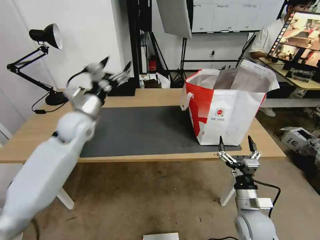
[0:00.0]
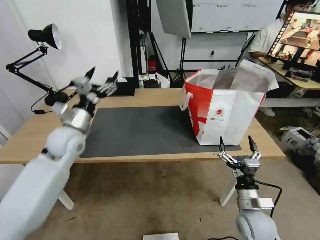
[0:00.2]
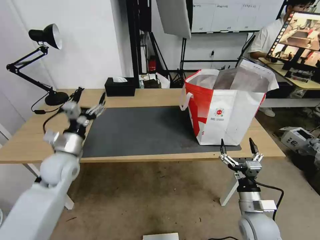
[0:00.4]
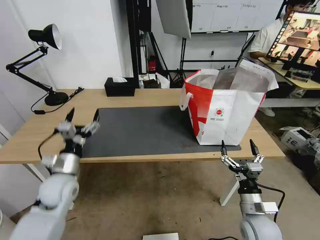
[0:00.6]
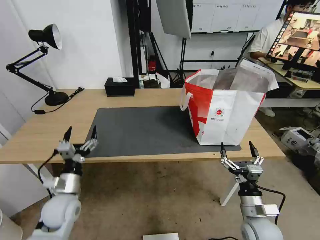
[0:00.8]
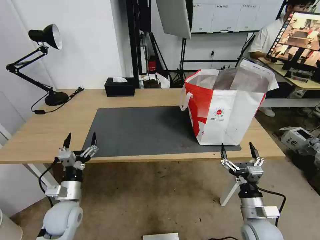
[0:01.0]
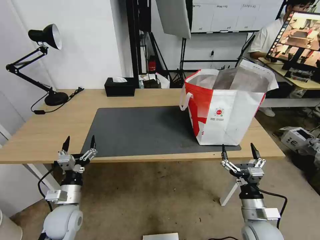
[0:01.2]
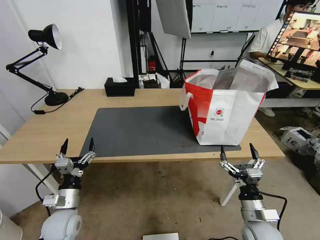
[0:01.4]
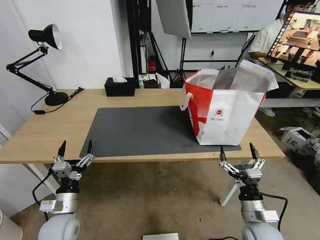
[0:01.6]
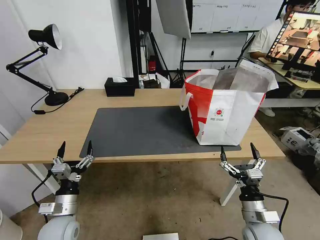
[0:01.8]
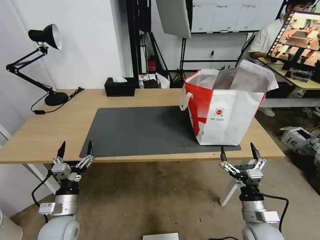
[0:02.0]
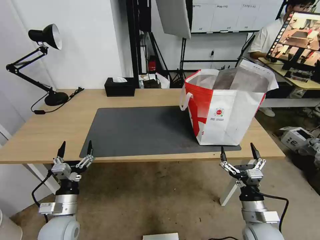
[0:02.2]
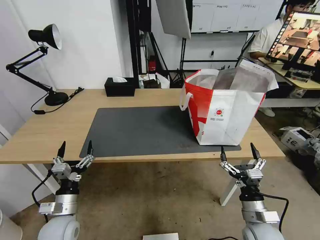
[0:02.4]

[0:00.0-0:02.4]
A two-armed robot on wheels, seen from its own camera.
Task of the whole recording: Pick up the trash from the table and place it into the takeout bag.
0:00.0 to 0:01.2: The left gripper travels downward and backward by about 30 cm.
0:01.2 to 0:02.4: The grippers make only small movements.

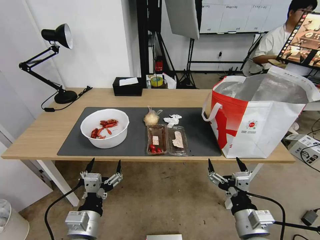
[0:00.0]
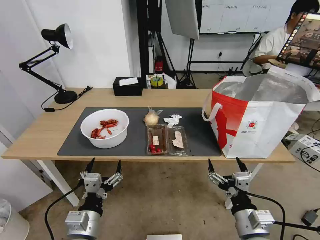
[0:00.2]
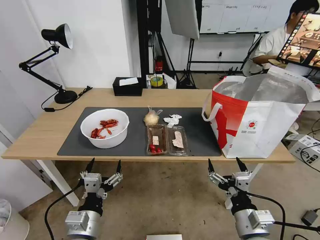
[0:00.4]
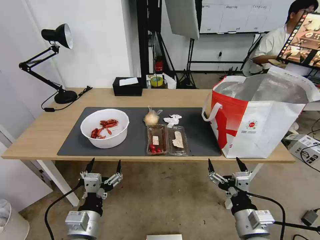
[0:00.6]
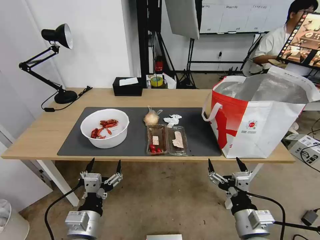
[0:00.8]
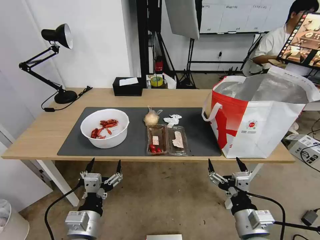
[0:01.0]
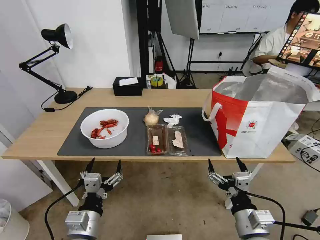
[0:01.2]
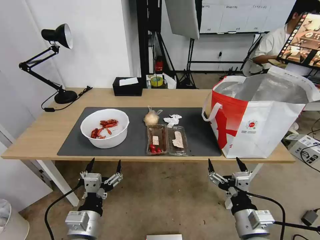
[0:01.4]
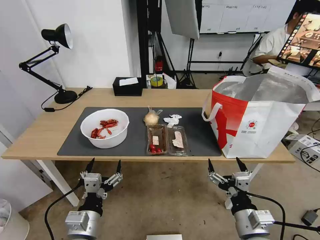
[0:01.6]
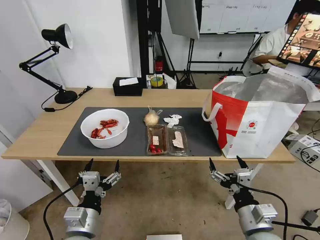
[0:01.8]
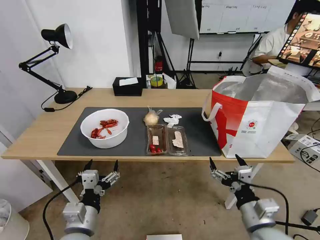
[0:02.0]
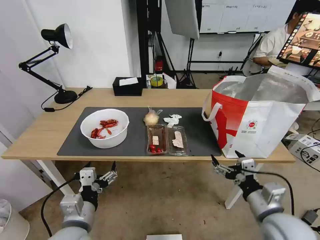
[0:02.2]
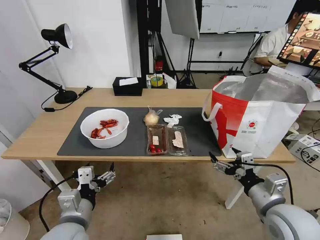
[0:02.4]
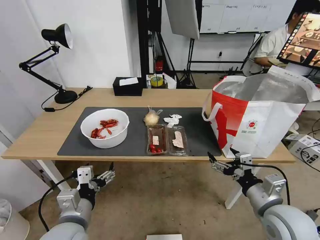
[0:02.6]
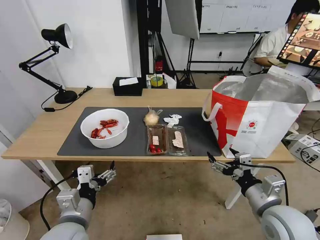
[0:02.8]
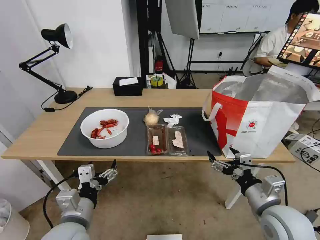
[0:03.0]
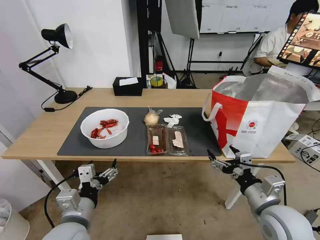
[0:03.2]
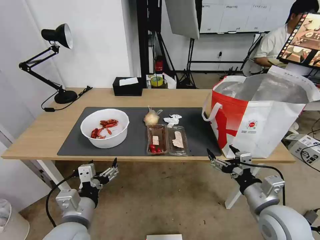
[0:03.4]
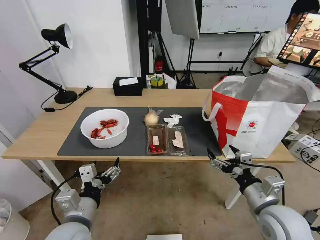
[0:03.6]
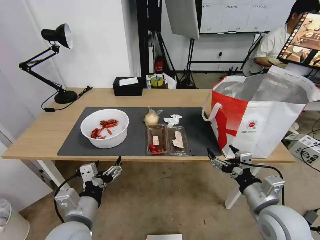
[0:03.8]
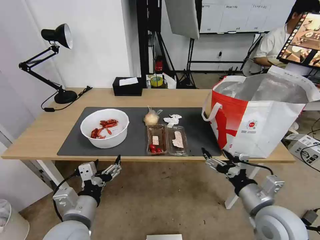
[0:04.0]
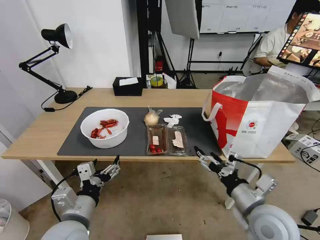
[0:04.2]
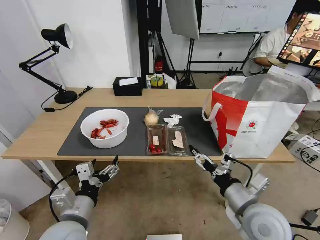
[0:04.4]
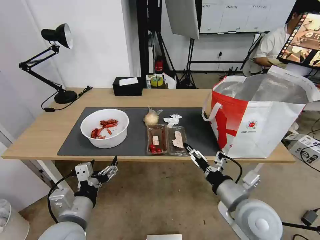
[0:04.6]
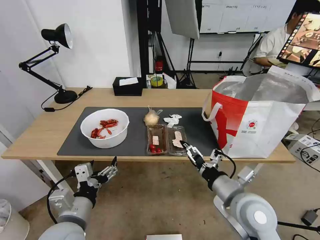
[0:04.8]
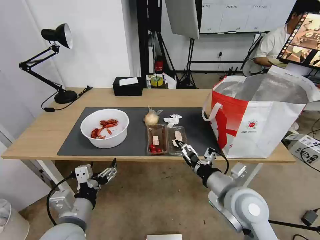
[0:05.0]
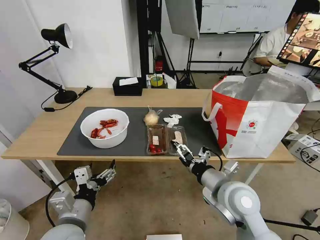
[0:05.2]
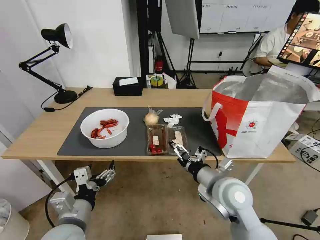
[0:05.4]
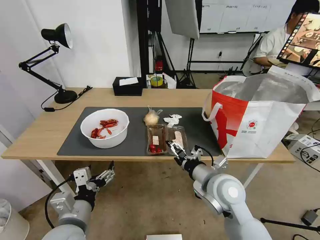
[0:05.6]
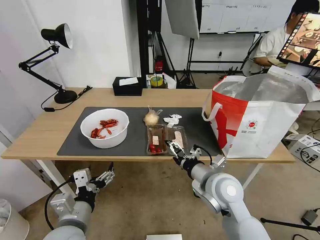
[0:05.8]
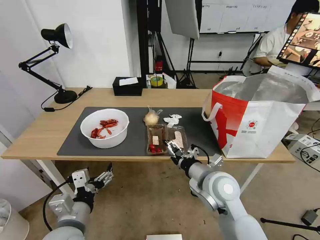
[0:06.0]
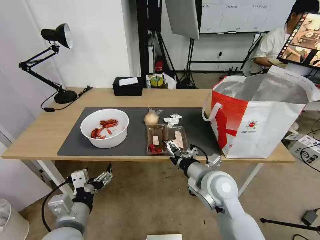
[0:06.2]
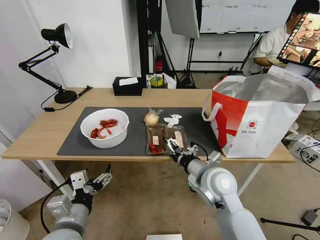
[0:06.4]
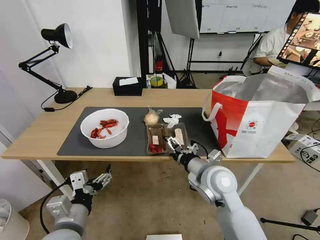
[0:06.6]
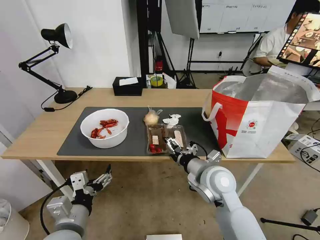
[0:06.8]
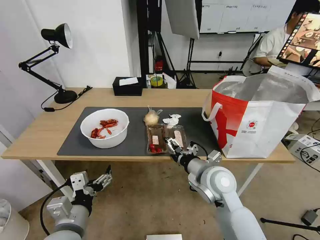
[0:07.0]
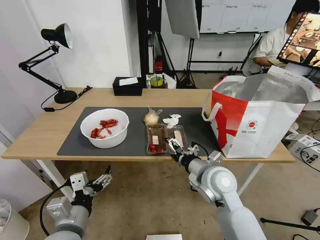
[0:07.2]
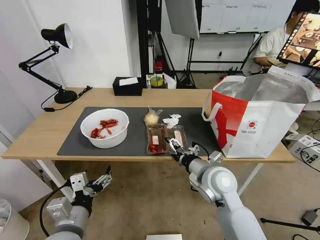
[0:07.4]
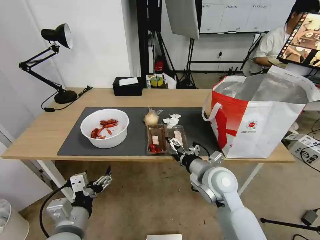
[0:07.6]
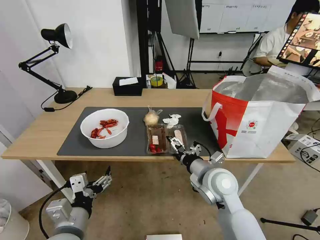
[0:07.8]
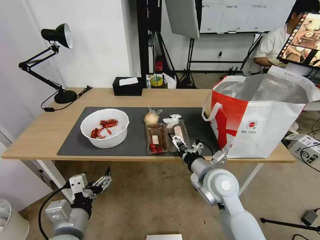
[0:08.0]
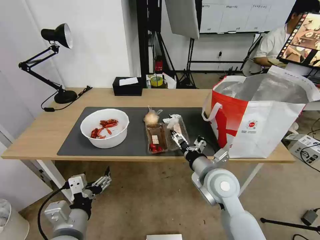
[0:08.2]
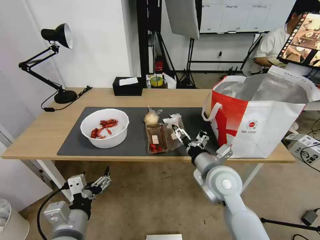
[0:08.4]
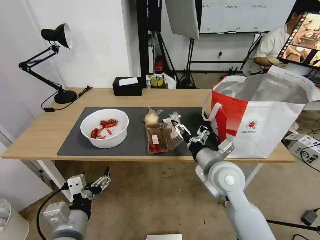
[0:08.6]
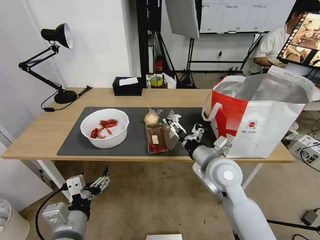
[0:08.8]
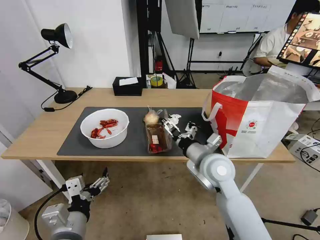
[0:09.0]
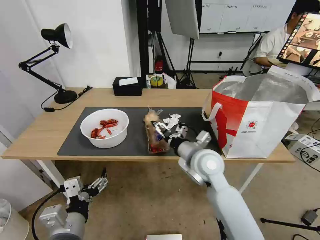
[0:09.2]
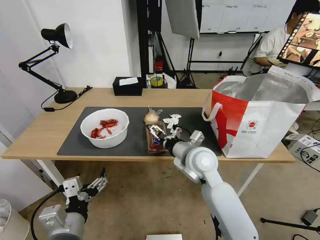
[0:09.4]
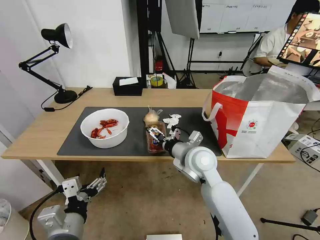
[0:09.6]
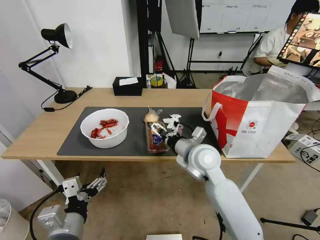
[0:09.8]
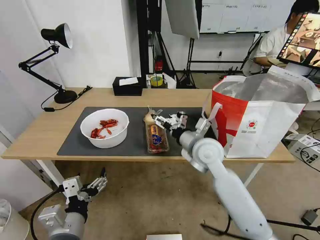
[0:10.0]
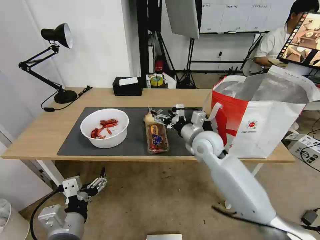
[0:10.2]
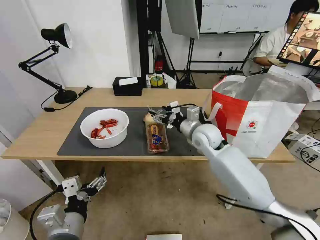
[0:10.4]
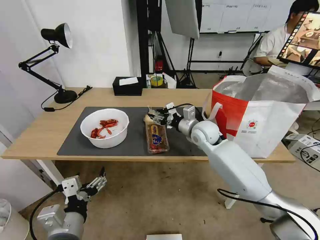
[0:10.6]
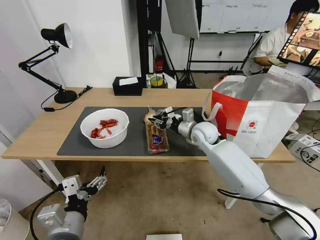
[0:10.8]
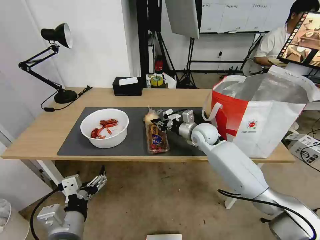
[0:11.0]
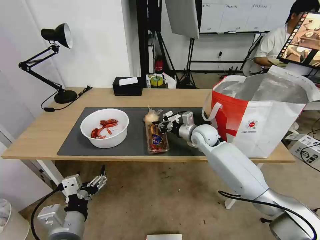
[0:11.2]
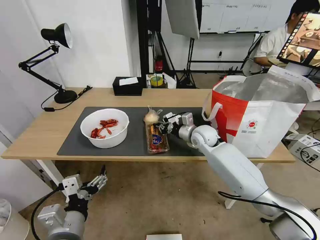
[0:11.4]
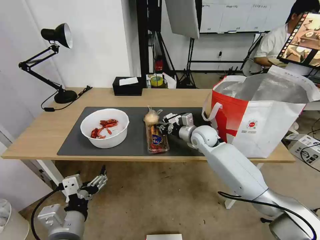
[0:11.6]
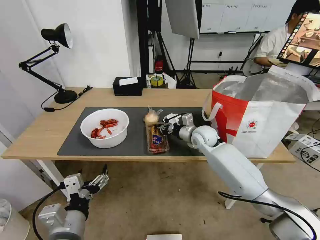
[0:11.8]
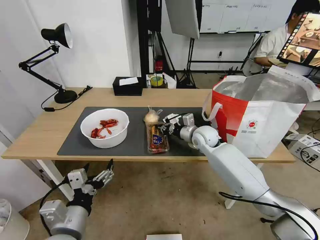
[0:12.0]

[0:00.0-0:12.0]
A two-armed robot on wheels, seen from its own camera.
Task of the whole recording: Pick up the trash from the table and place it into the takeout bag.
0:01.6 to 0:03.0: The left gripper moves some 5 cm; the right gripper travels forward and to the right by some 10 cm.
0:03.0 to 0:04.4: The right gripper moves to the left, about 5 cm.
0:04.4 to 0:06.0: The right gripper moves forward and to the left, some 10 cm.
0:06.0 to 0:07.6: The grippers stay close to where they were, moving slightly.
0:09.0 to 0:10.4: The right gripper shifts approximately 15 cm forward.
0:10.4 to 0:12.0: The right gripper is displaced downward by approximately 5 cm, and closes its fingers.

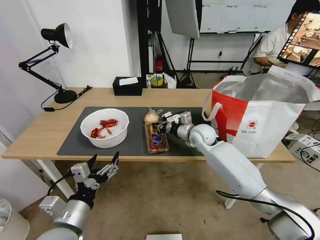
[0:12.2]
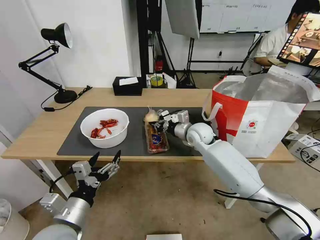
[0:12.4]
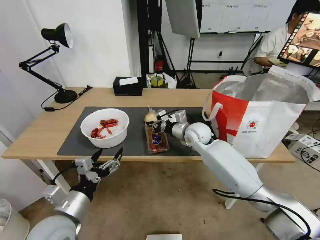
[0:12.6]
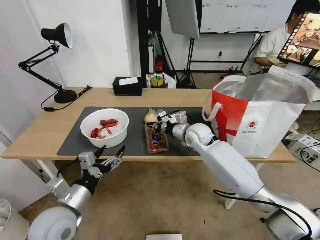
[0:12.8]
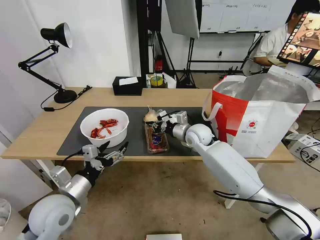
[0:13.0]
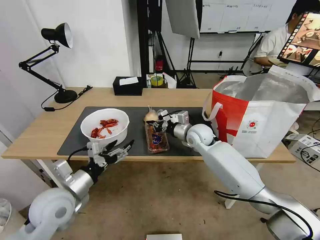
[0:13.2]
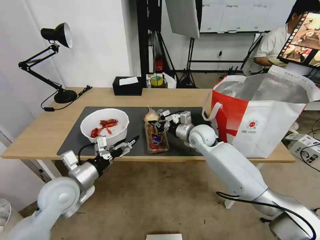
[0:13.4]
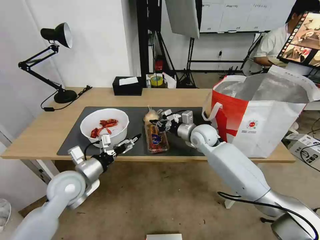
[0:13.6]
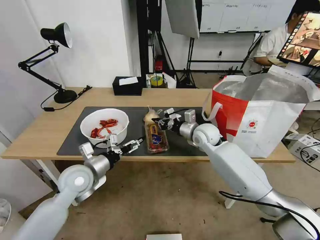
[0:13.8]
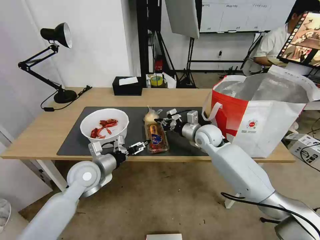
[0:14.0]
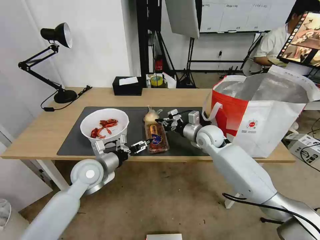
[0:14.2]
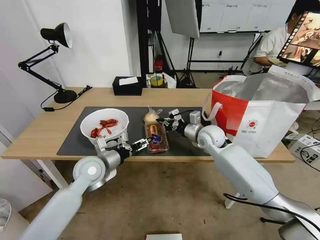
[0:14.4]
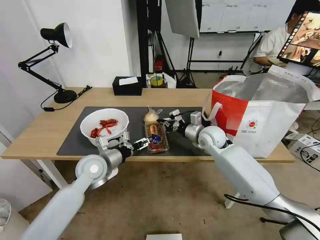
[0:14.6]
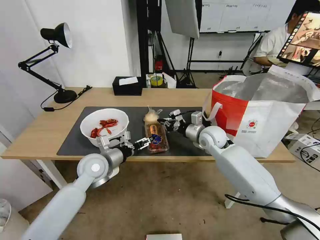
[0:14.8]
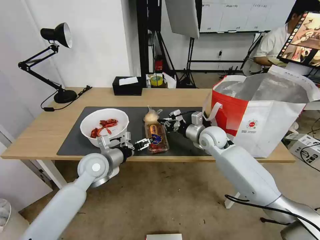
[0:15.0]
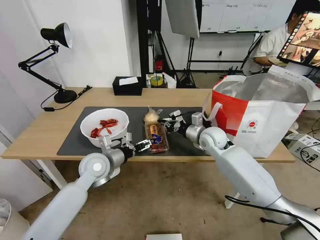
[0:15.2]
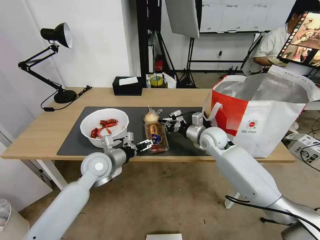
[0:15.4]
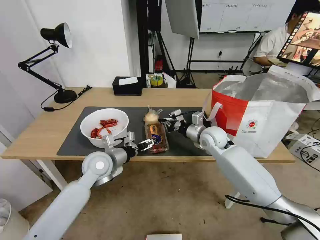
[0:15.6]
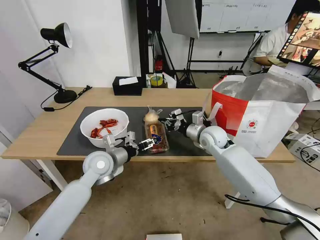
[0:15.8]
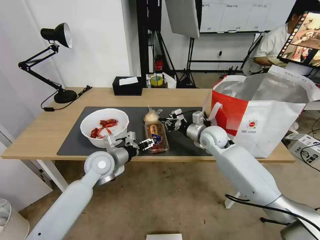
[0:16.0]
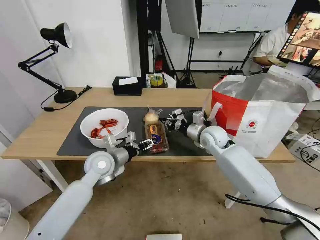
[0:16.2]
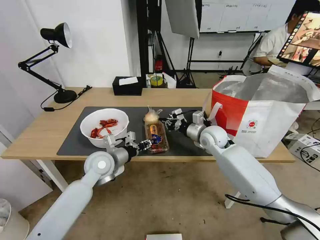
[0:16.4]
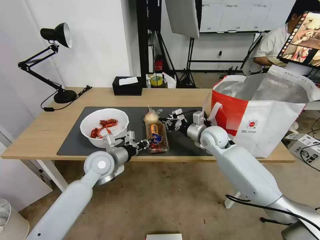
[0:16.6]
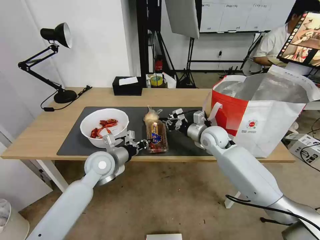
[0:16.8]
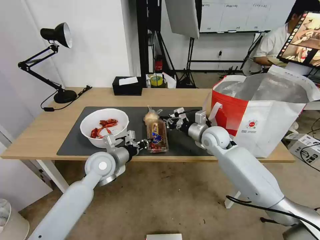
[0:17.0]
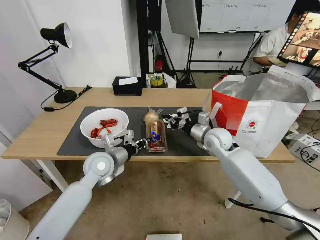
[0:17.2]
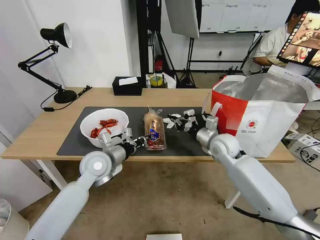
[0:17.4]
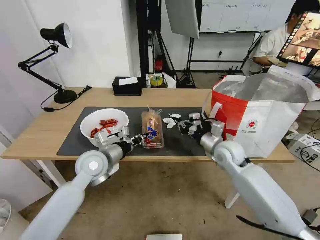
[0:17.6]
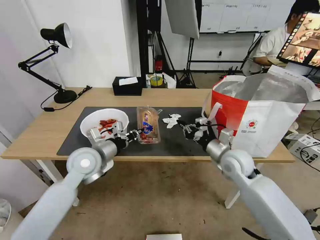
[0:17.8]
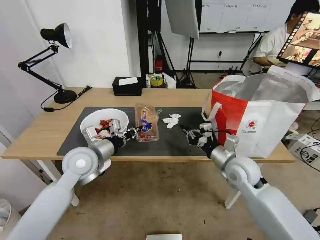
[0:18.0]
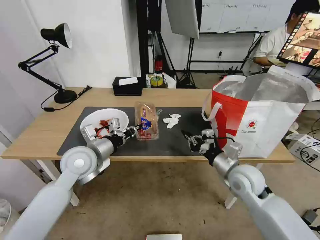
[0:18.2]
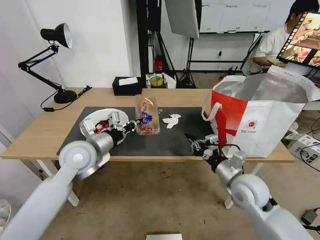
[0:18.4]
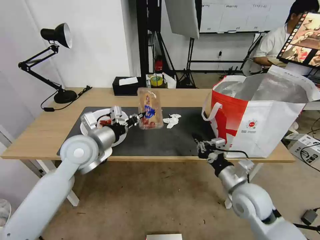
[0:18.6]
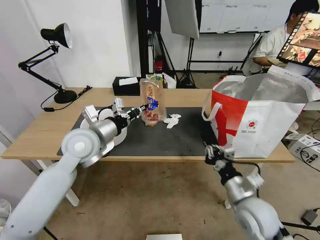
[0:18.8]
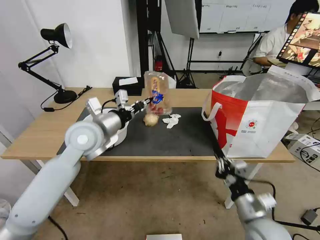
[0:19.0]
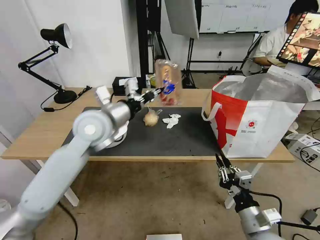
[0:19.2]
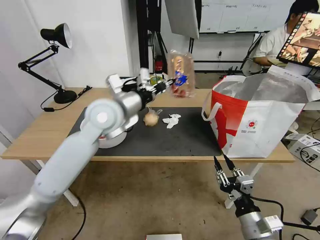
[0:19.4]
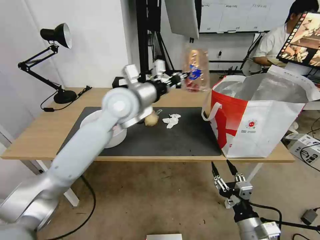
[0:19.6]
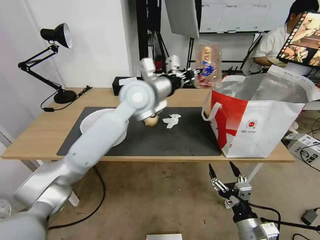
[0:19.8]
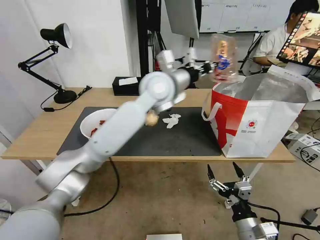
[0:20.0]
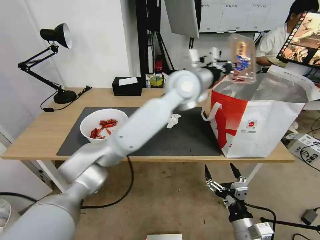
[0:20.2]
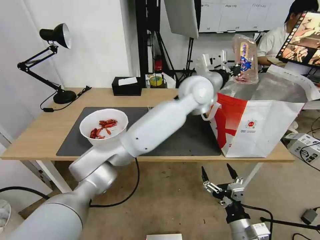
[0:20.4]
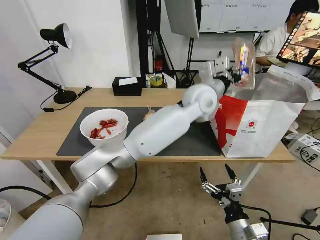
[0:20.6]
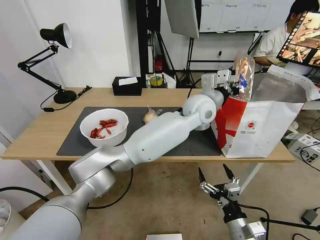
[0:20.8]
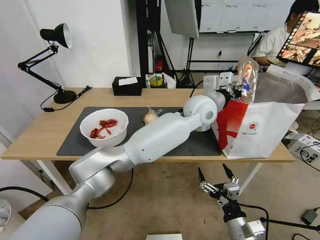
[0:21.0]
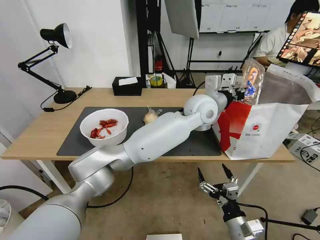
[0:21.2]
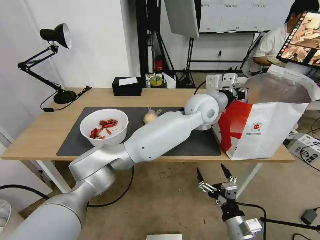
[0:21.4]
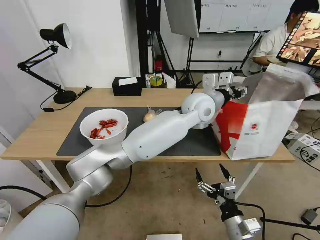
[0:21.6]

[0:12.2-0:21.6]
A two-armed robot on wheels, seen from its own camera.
Task of the whole recording: Pick up the trash from the table and place it into the takeout bag.
0:12.2 to 0:13.8: The left gripper travels forward by roughly 15 cm.
0:13.8 to 0:15.4: The left gripper heads forward, covering roughly 5 cm.
0:15.4 to 0:17.0: The left gripper closes its fingers.
0:17.0 to 0:18.4: The left gripper moves upward, roughly 10 cm; the right gripper moves backward, approximately 20 cm.
0:18.4 to 0:20.0: The left gripper moves to the right, upward and forward, about 30 cm, while the right gripper is displaced backward and downward by approximately 20 cm, and opens.
0:20.0 to 0:21.6: The left gripper moves to the right and downward, some 15 cm, and opens its fingers.
